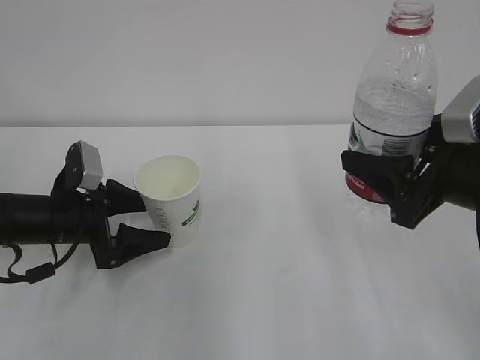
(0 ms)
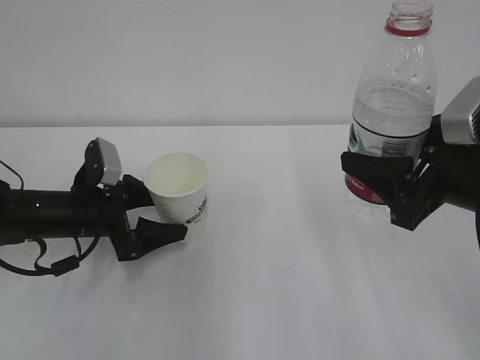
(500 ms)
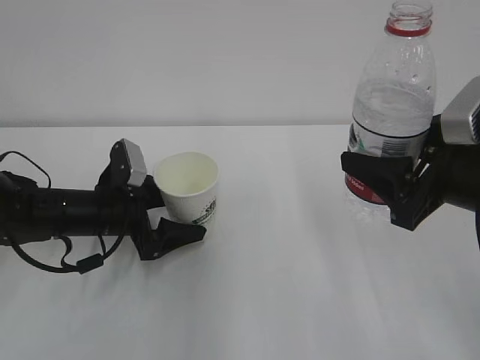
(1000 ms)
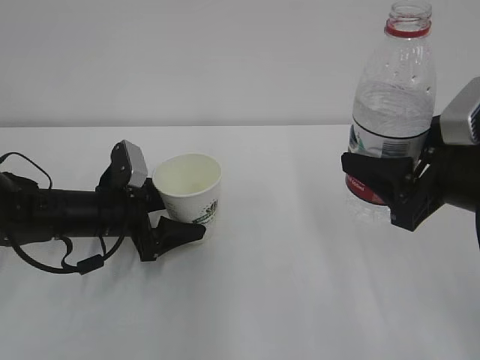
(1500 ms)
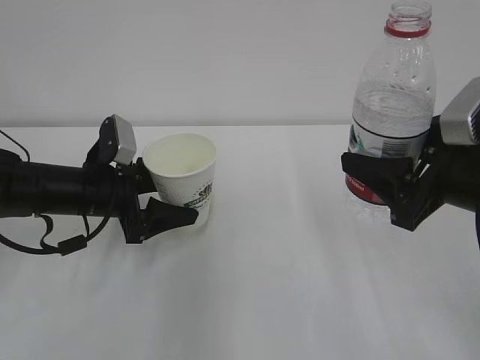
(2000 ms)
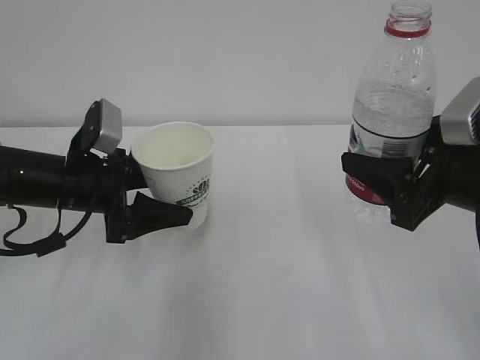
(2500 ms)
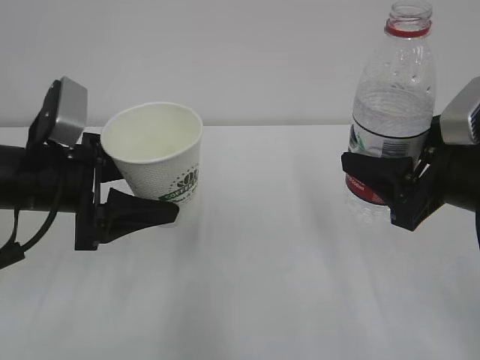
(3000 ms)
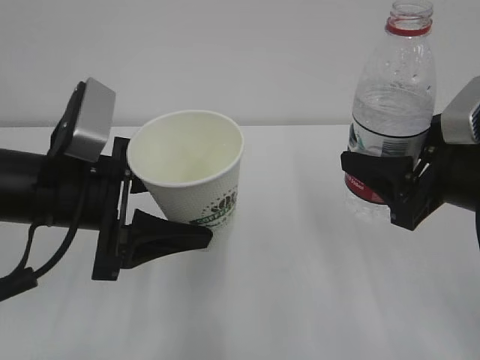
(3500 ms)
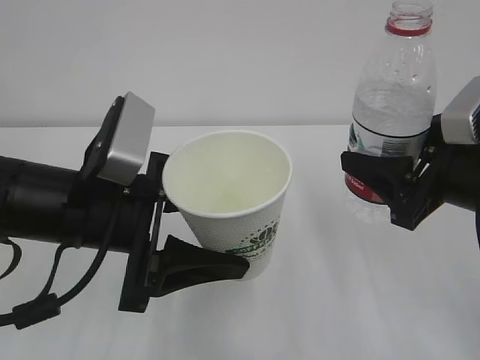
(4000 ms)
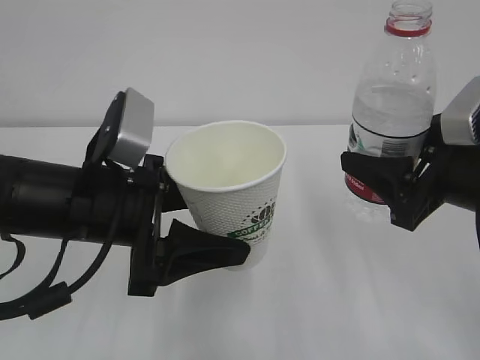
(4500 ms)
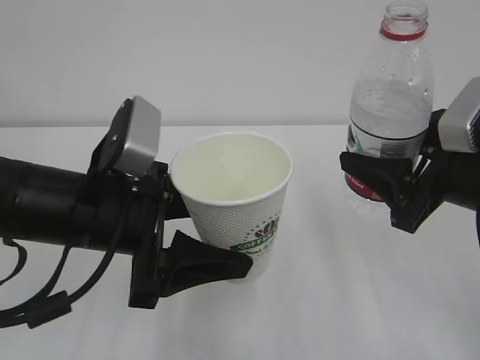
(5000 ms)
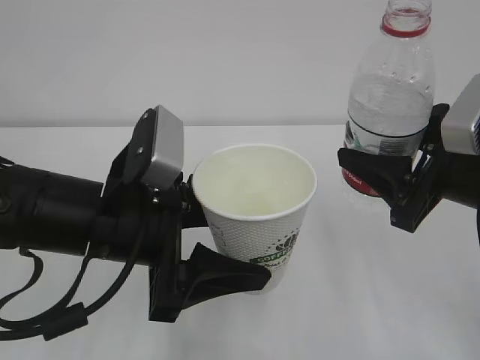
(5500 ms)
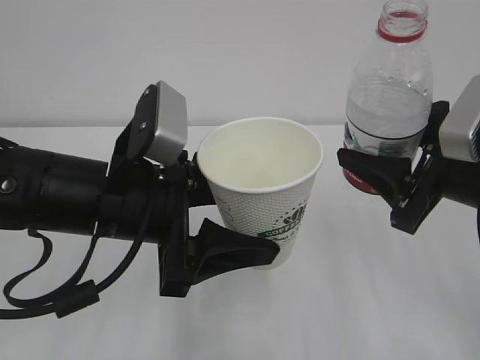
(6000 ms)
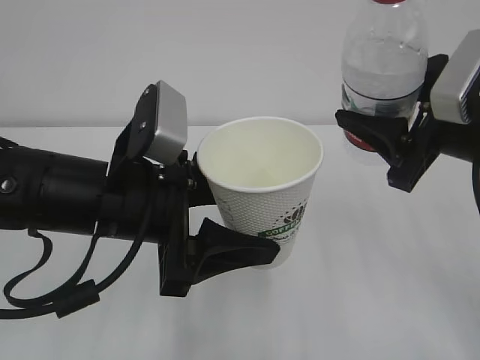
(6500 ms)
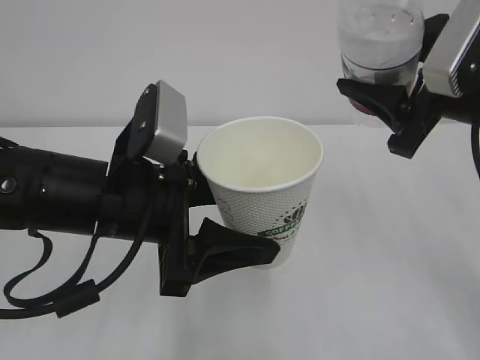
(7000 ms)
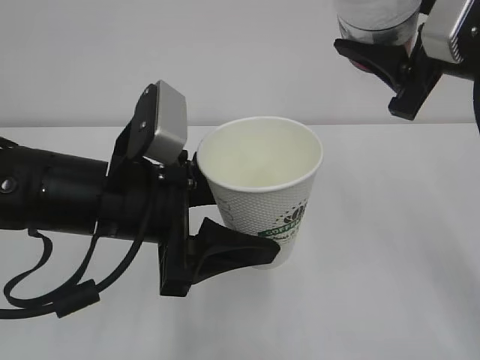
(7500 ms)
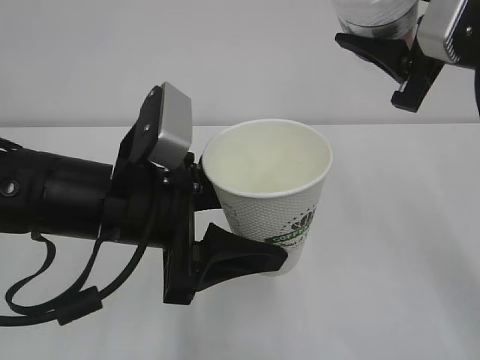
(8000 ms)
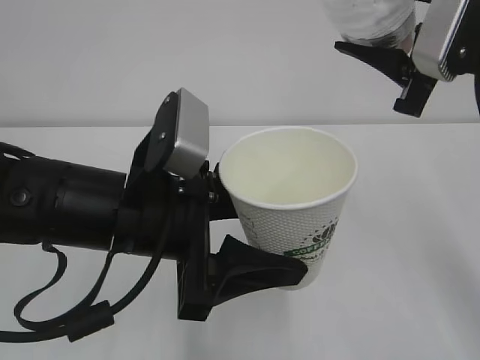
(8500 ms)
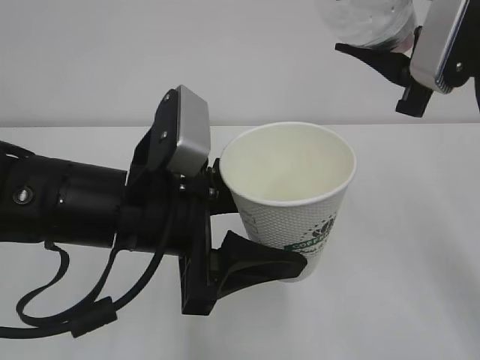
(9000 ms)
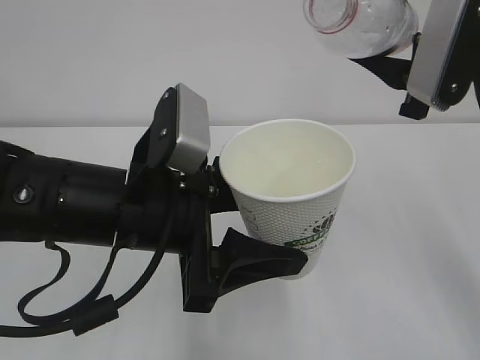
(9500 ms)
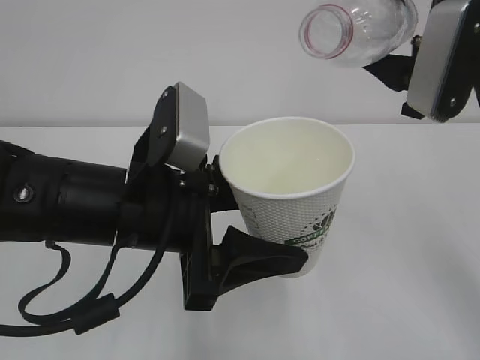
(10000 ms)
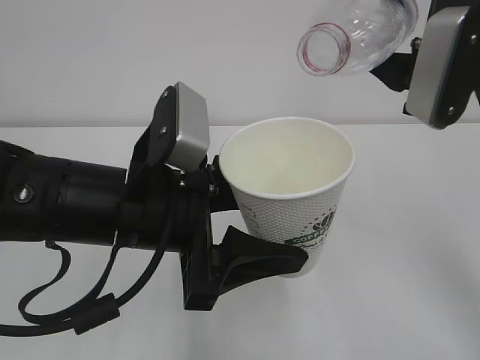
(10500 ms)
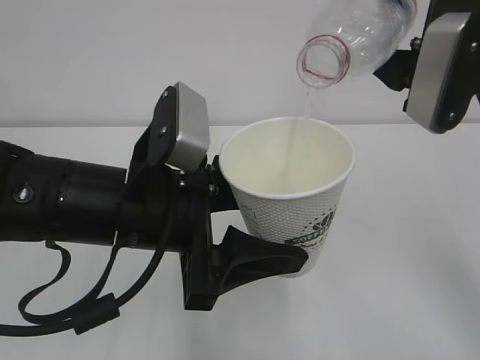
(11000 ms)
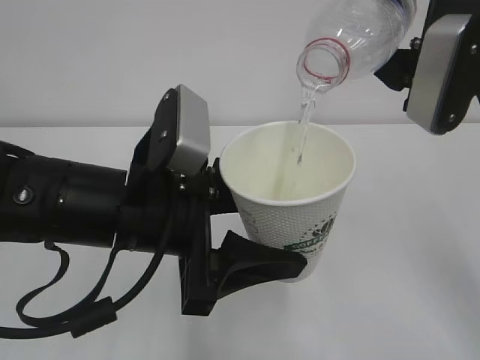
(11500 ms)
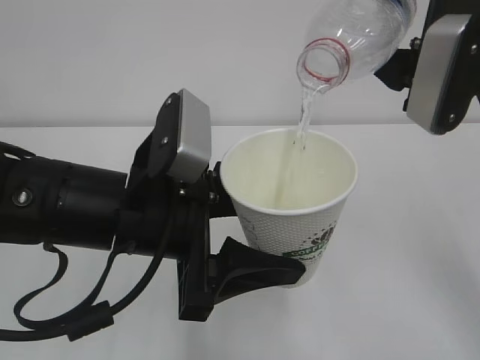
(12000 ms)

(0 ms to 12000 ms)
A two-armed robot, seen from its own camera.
0 ms - 2000 ms: The left gripper changes place by about 5 cm, and closes up.
2000 ms - 4000 ms: The left gripper goes some 15 cm backward, upward and to the right.
4000 ms - 6000 ms: The grippers stay close to where they were, moving slightly.
6000 ms - 8000 ms: The right gripper travels upward and forward by roughly 10 cm.
10000 ms - 12000 ms: The grippers stay close to where they were, moving slightly.

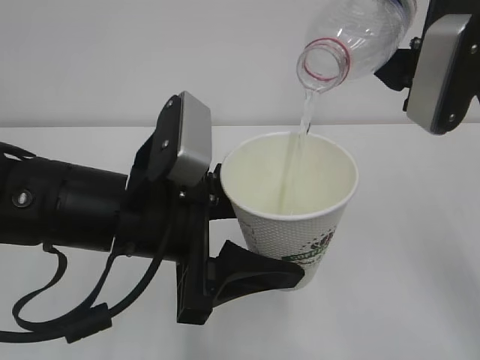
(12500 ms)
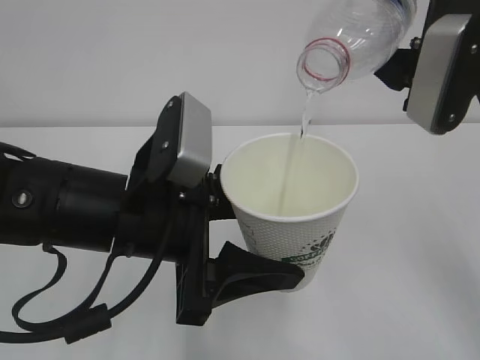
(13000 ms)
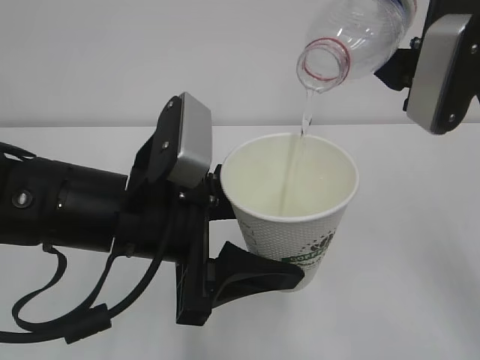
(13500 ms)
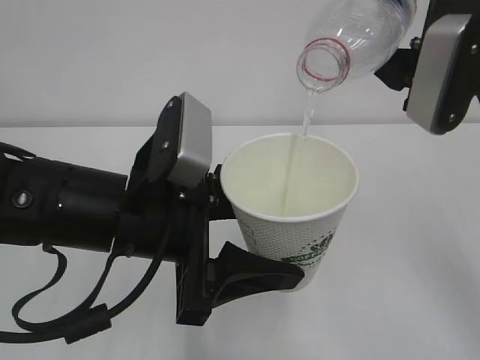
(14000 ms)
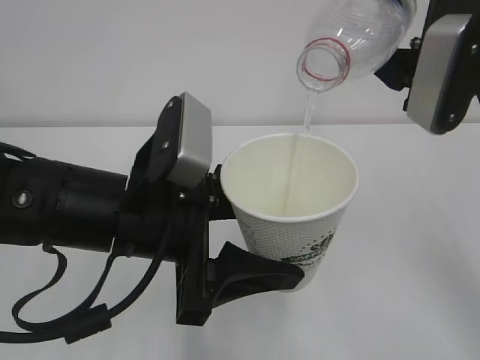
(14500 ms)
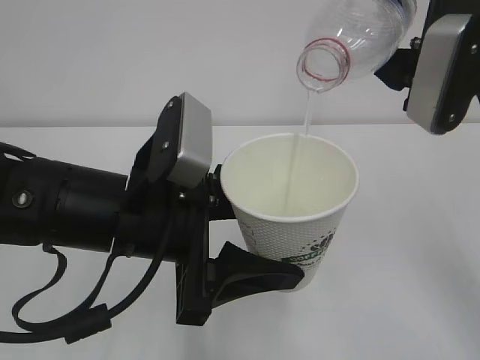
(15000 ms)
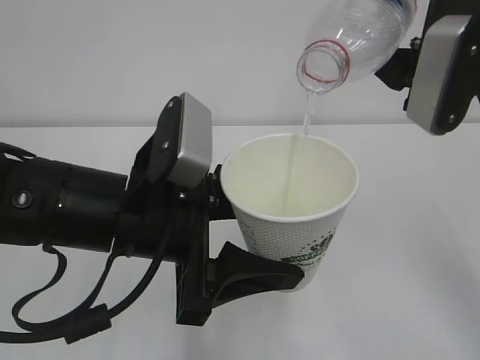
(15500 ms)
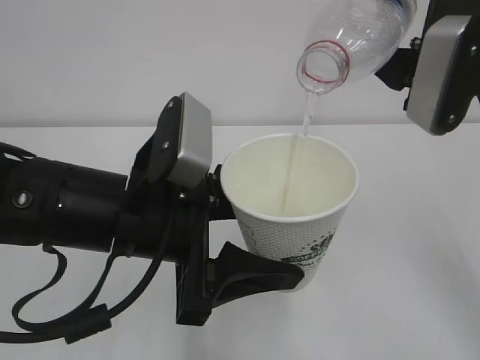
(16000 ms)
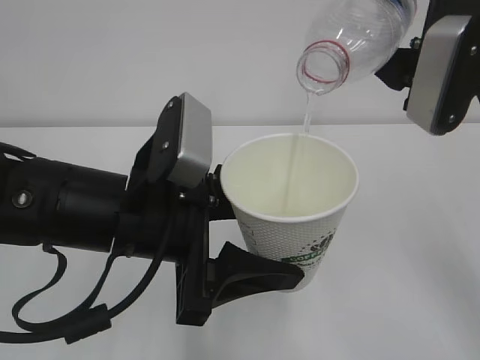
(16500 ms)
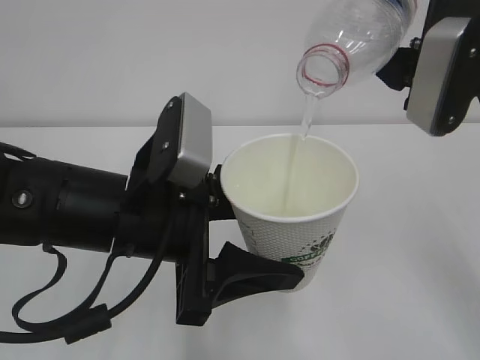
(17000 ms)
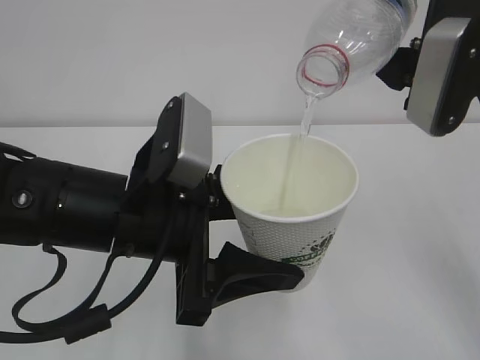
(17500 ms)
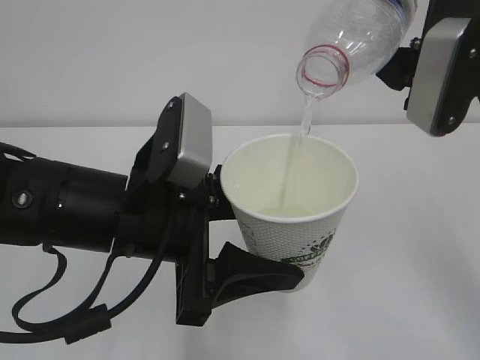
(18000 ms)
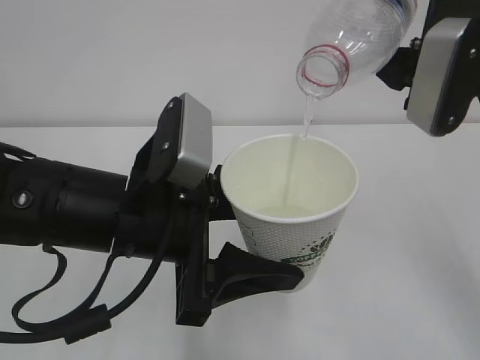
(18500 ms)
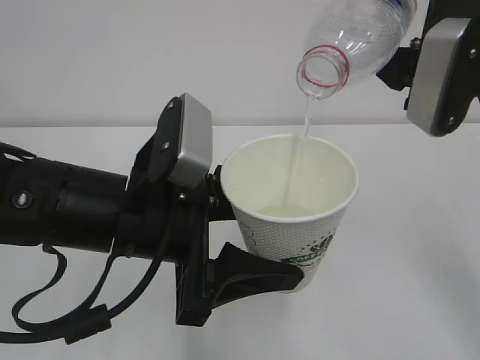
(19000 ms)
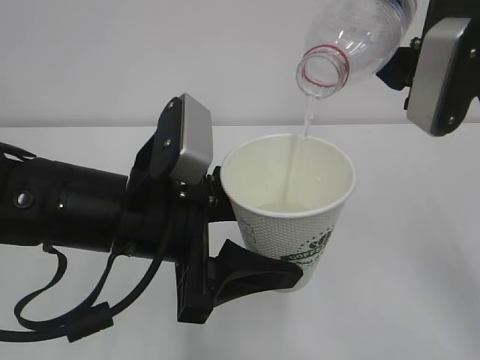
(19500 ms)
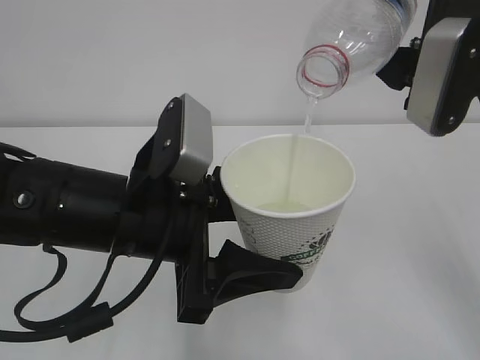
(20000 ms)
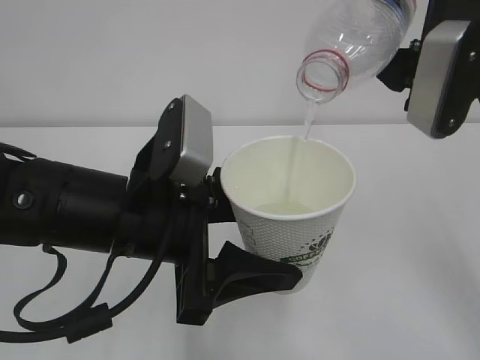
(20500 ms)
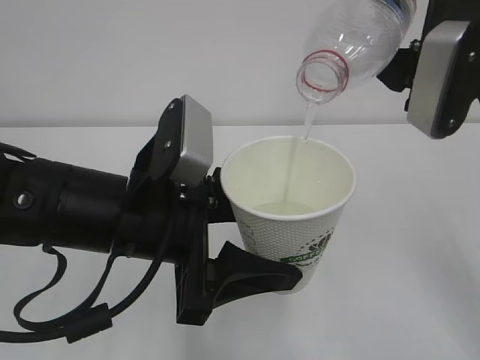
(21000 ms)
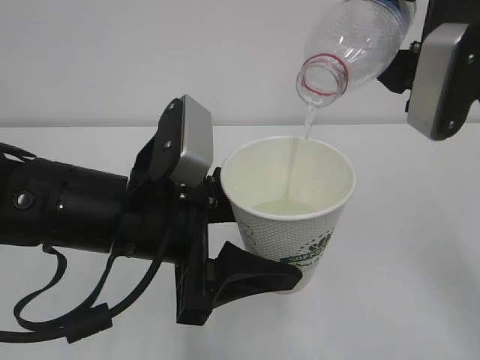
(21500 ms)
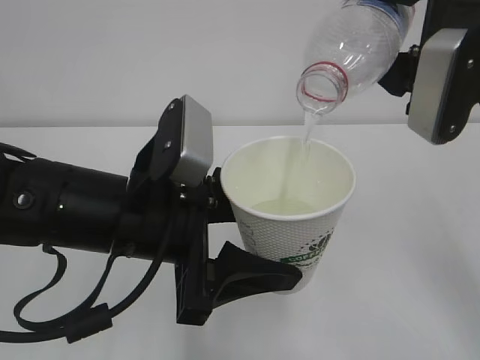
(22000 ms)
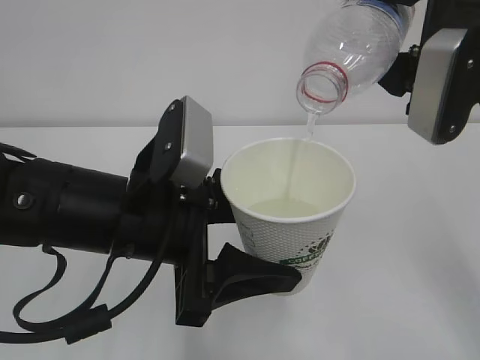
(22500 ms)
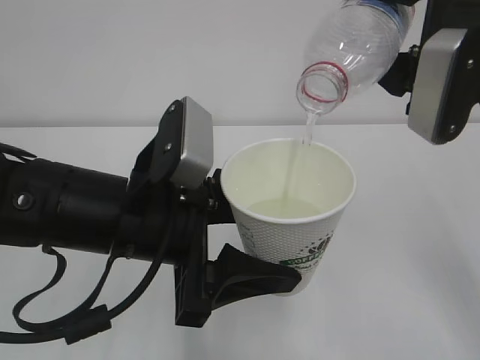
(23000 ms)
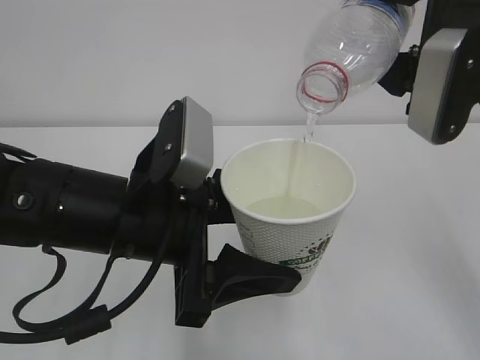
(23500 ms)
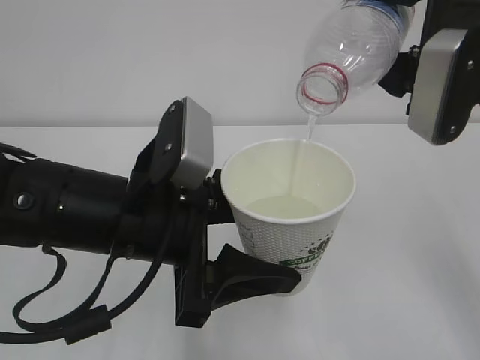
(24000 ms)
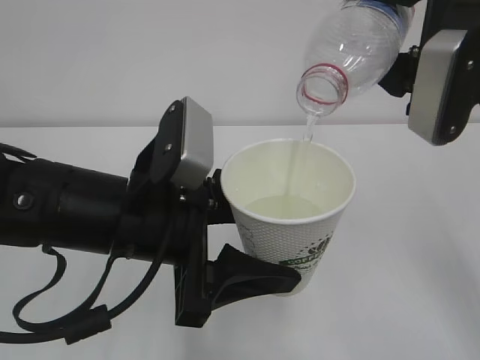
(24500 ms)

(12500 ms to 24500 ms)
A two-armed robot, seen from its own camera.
12500 ms - 24500 ms: Neither gripper changes place.

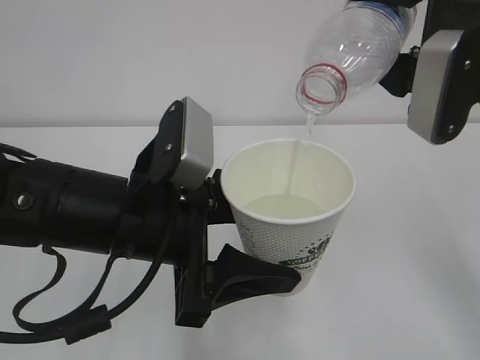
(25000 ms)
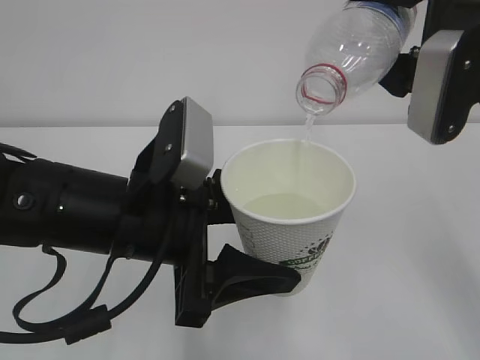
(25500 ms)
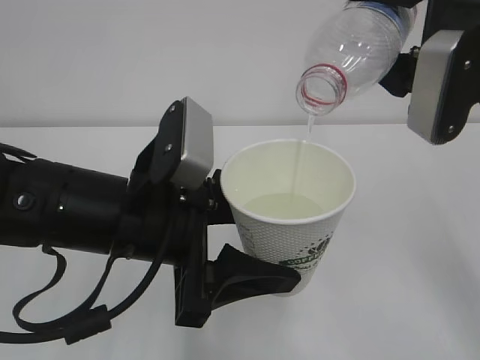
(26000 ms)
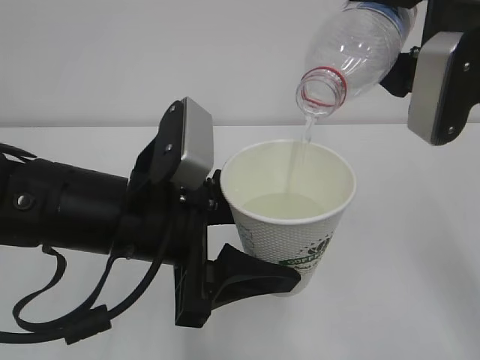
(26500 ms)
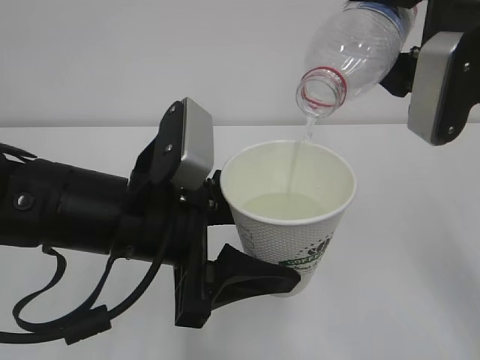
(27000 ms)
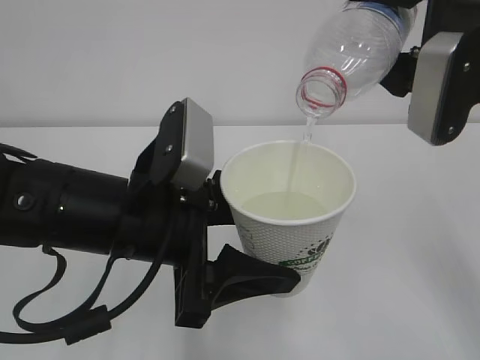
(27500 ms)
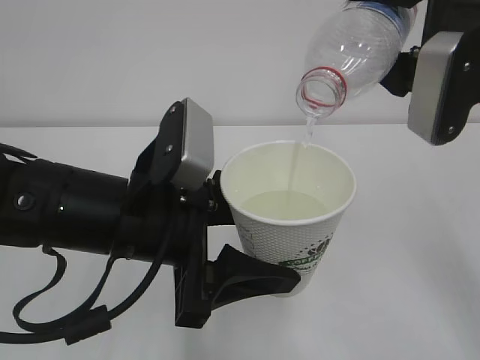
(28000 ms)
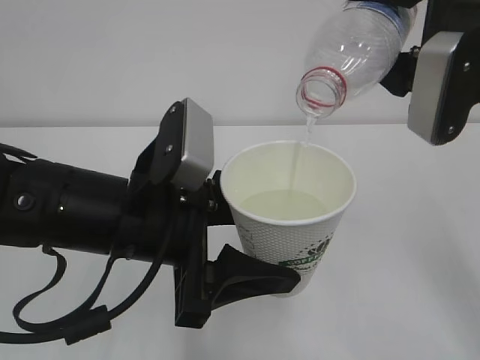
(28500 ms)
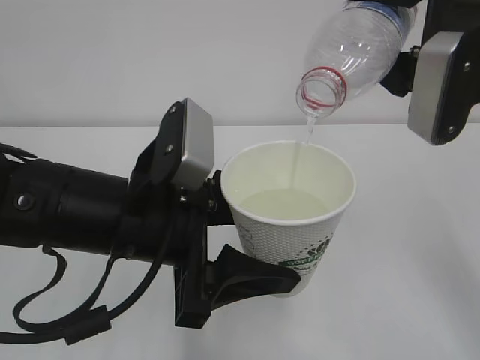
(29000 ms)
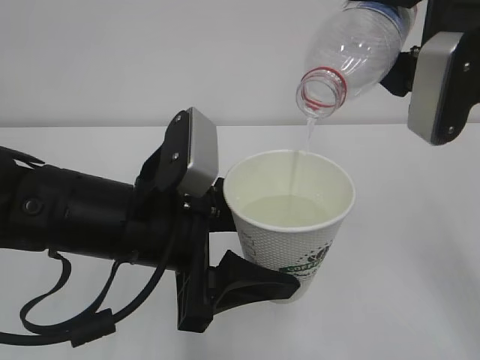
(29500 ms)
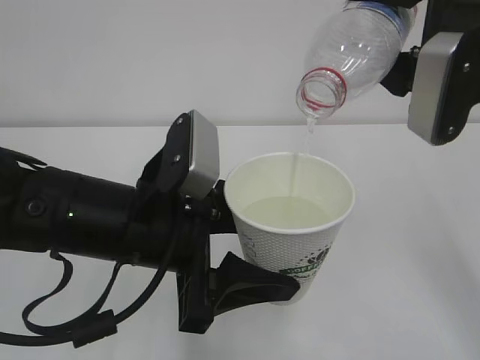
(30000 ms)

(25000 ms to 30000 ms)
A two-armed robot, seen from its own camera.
25000 ms - 30000 ms: Both grippers stay about where they are.
